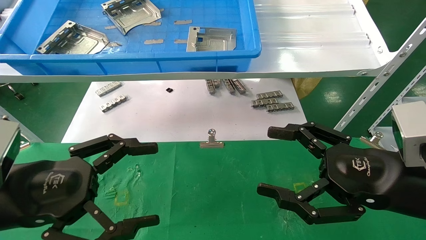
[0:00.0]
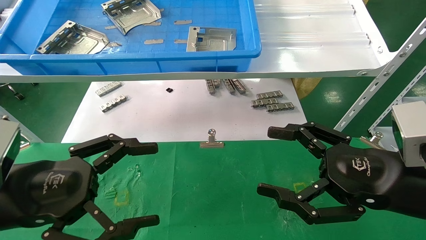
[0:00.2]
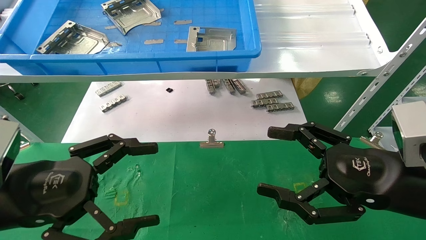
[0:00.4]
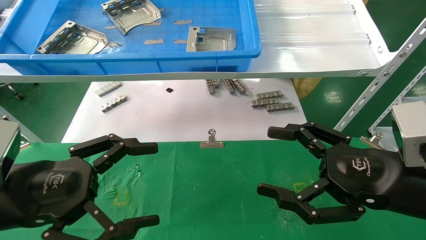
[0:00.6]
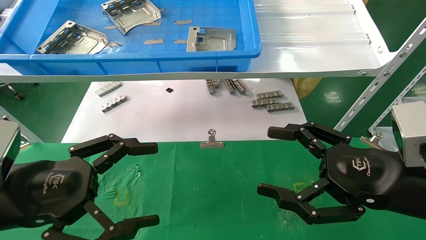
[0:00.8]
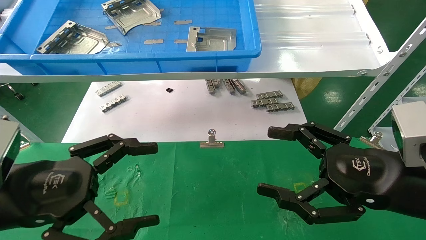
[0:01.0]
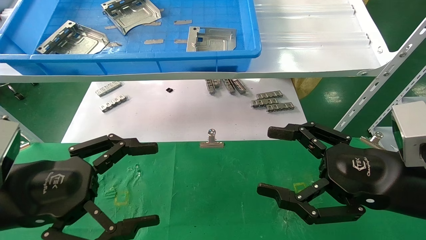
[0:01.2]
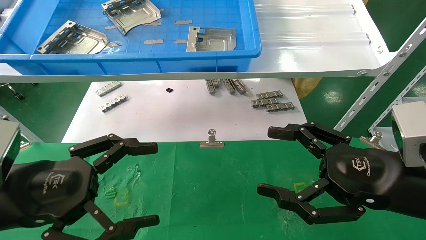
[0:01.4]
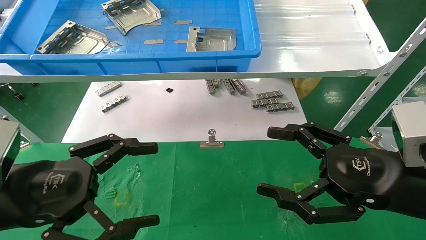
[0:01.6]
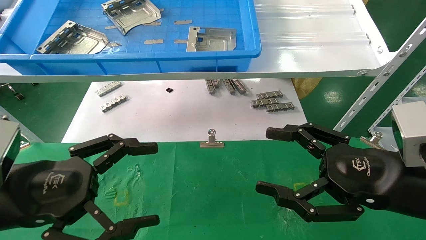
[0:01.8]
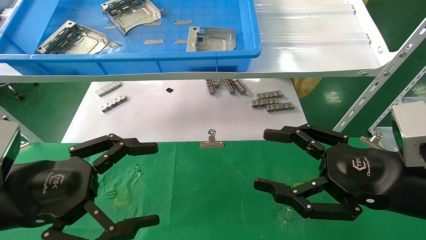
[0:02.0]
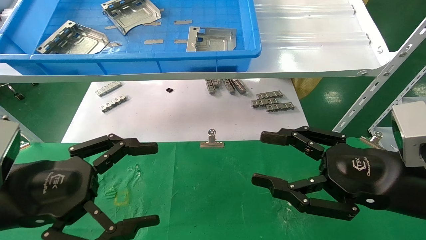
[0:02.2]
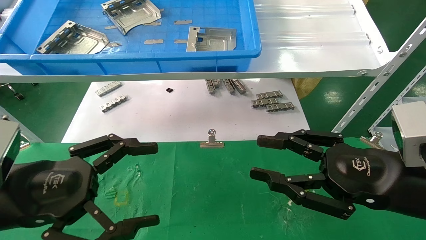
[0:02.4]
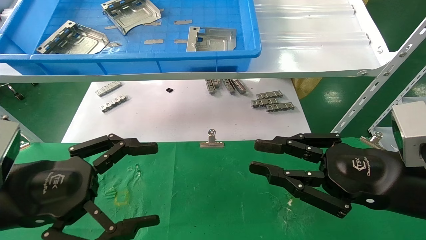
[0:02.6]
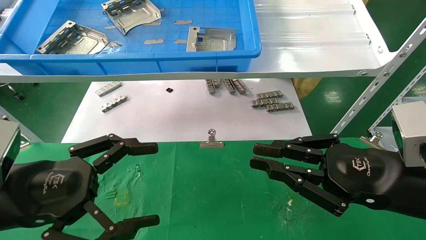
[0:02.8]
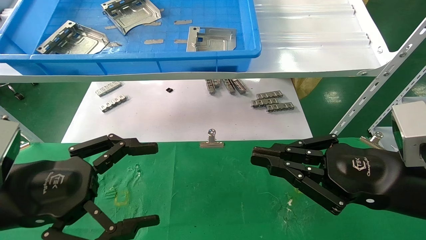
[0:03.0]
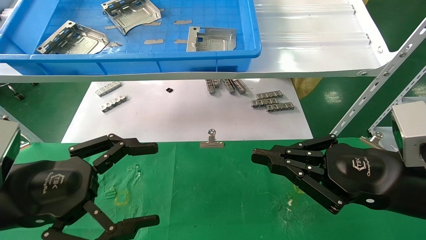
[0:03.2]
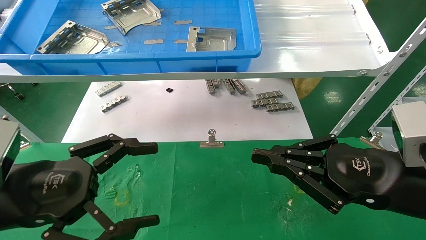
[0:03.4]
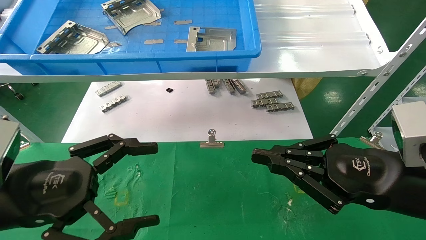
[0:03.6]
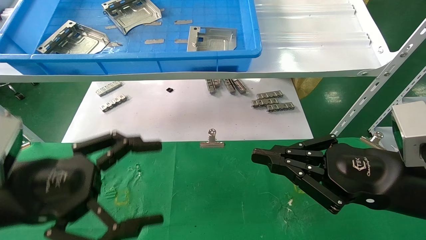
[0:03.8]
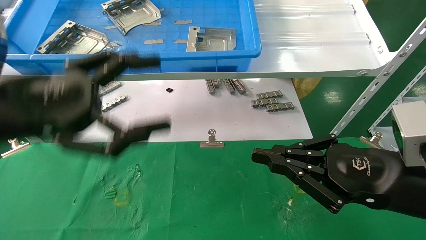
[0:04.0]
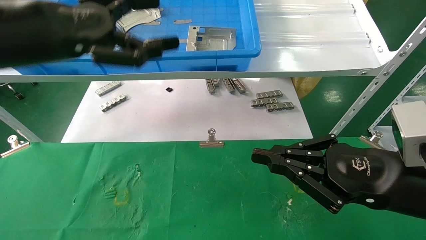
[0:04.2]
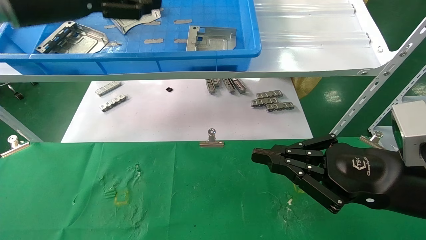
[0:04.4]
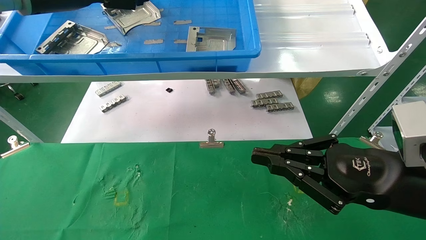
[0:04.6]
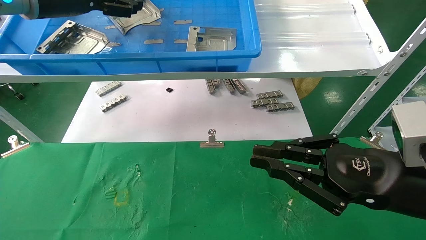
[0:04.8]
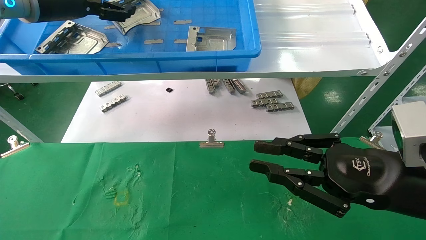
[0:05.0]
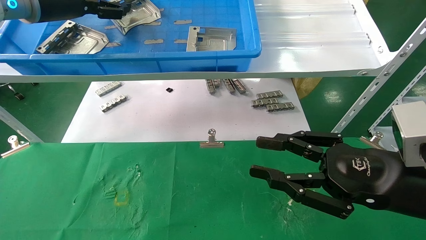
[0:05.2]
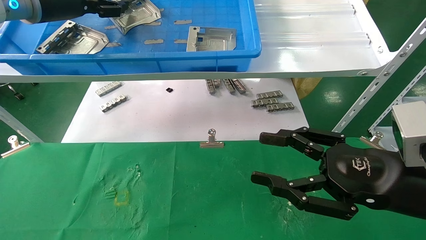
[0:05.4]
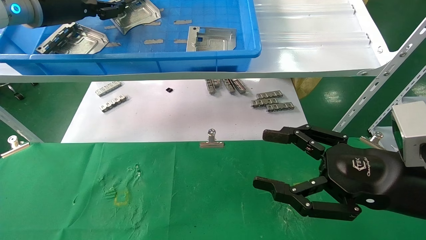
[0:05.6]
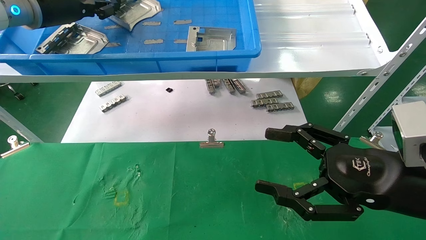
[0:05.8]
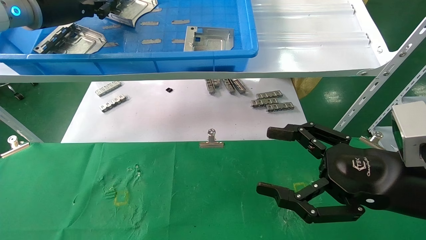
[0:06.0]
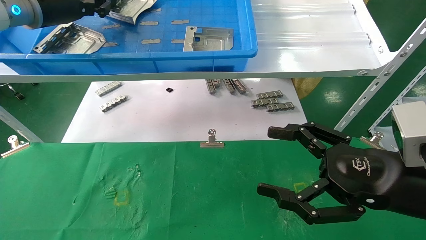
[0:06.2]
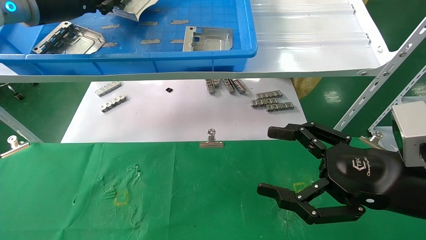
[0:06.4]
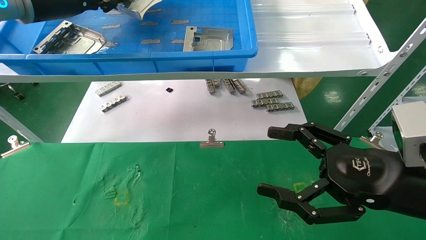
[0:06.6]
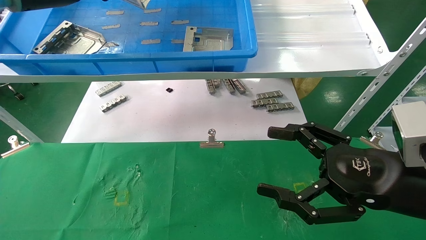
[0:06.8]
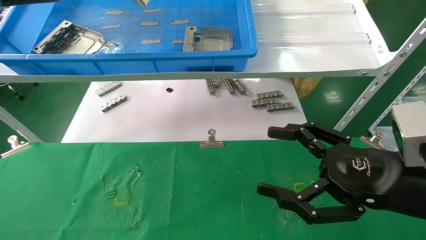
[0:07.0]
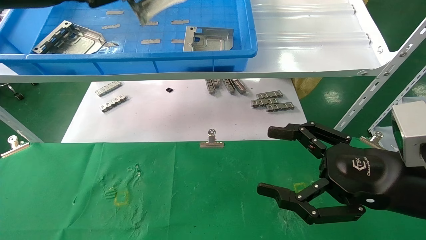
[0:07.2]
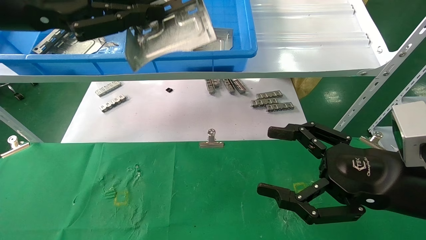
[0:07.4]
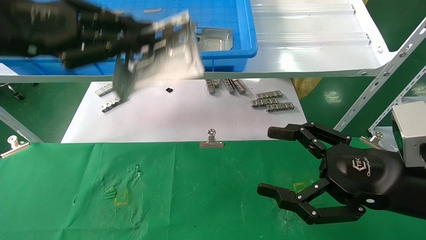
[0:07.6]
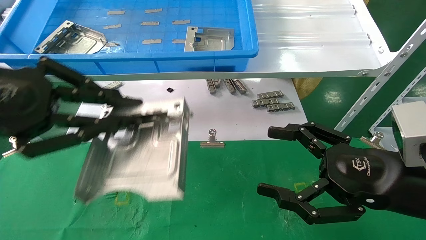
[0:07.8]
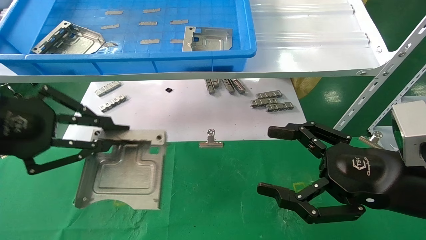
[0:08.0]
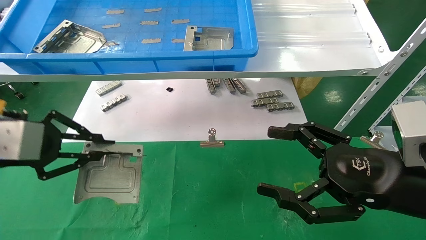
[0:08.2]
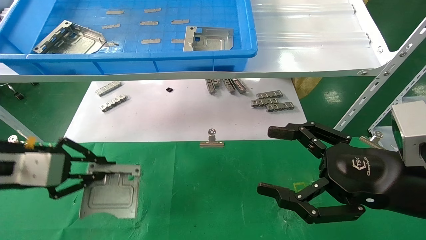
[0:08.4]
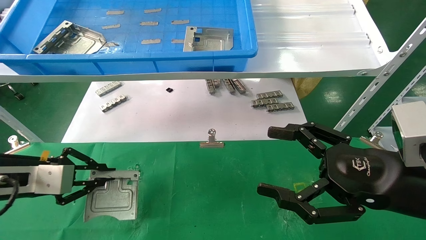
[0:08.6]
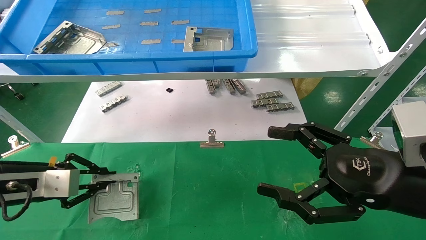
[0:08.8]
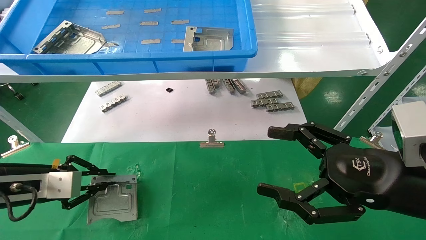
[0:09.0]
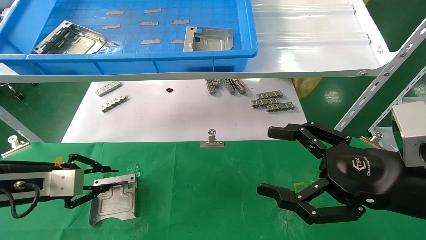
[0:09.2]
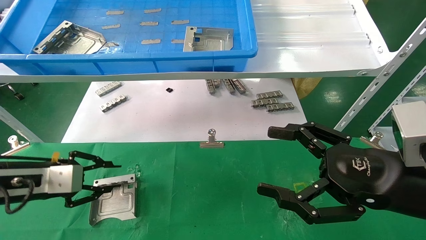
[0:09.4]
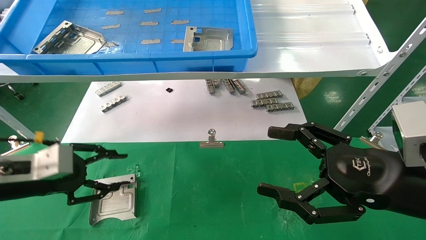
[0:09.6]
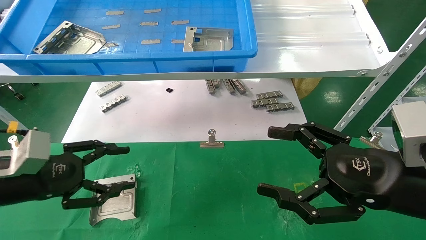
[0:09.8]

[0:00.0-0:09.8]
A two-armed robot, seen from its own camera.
Task of the whole recording: use the mechanical arm to pick up the parts and place them on the table.
Step, 0:04.2 to 0:06.0: Pick up the hard drive bracket from the feeding area.
Step, 0:06.2 to 0:09.4: Place the hard drive bracket into the box.
0:00.0 to 0:01.4: The two grippers keep their place.
0:01.4 to 0:02.8: The right gripper closes its fingers.
0:02.8 to 0:04.2: The left gripper travels upward and forward by about 20 cm.
0:04.2 to 0:05.6: The right gripper opens its fingers; the left gripper heads forward and upward, covering some 15 cm, and closes.
0:05.6 to 0:07.0: The right gripper opens its fingers, while the left gripper goes some 10 cm backward, and closes.
0:07.0 to 0:08.4: The left gripper heads downward, covering approximately 25 cm.
0:08.4 to 0:09.8: The left gripper travels downward by approximately 5 cm, and opens.

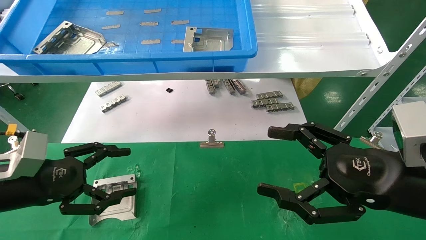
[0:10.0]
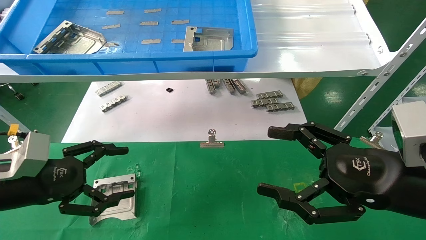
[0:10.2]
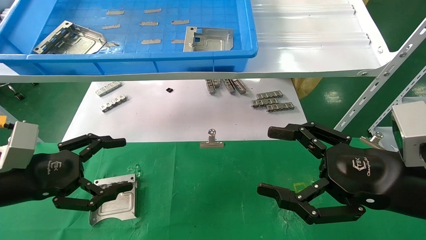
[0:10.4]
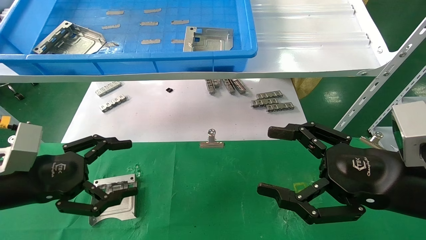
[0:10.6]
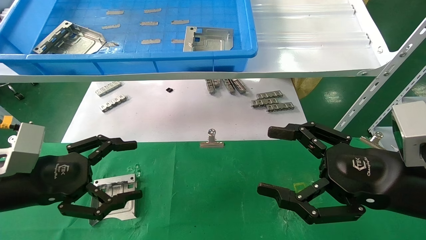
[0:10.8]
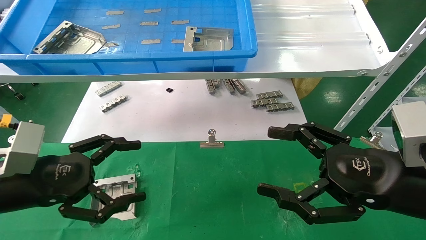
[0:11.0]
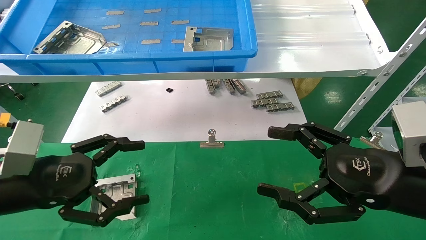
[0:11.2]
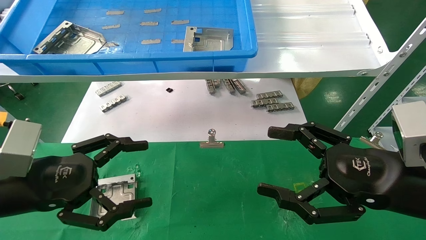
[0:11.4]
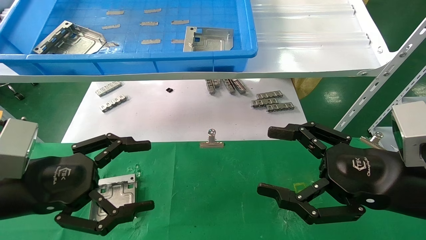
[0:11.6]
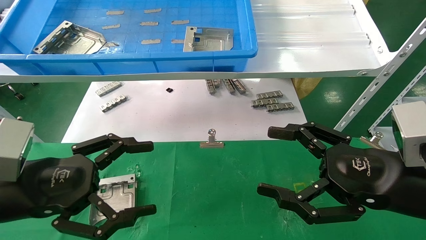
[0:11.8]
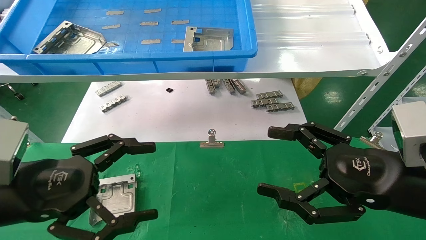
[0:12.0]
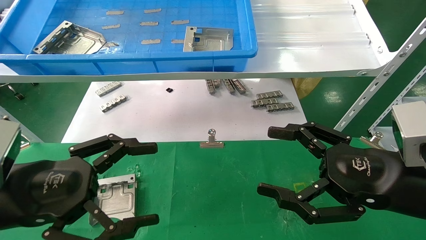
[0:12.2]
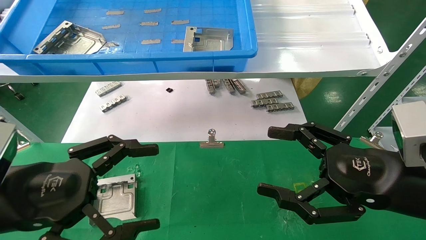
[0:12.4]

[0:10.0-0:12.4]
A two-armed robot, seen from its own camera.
Task of the whole recording: use the mechanical arm to pick up the parts and place them on the table.
0:10.0 to 0:11.2: The left gripper shifts by approximately 5 cm.
0:11.2 to 0:12.4: The left gripper ends up about 5 cm from where it was.

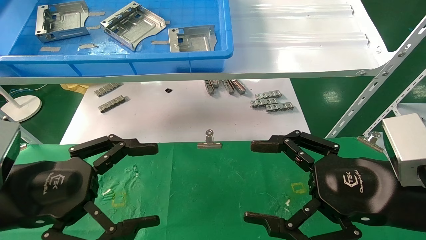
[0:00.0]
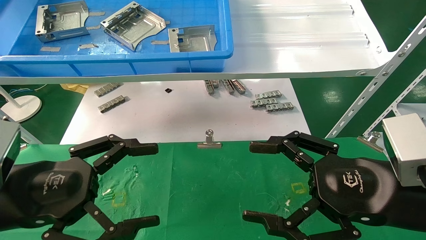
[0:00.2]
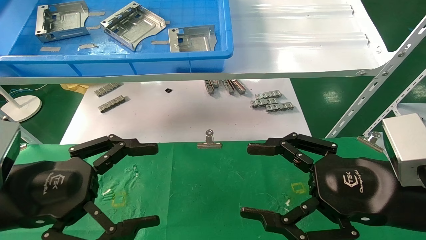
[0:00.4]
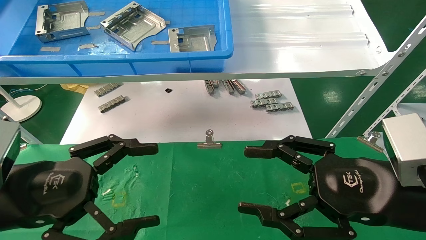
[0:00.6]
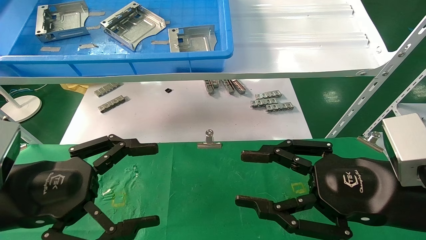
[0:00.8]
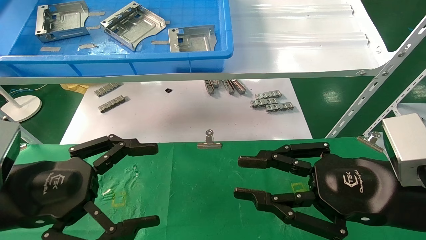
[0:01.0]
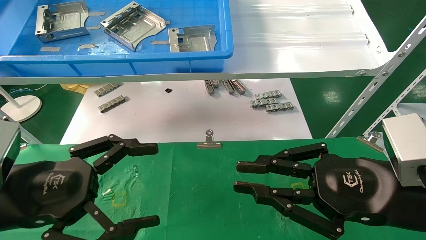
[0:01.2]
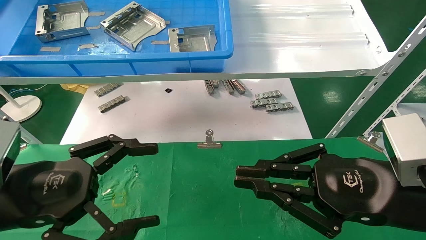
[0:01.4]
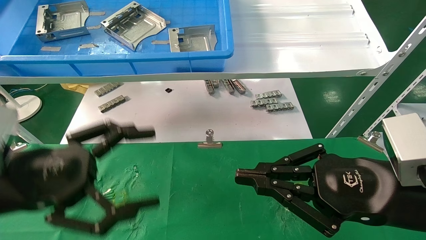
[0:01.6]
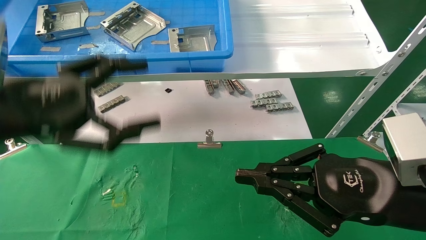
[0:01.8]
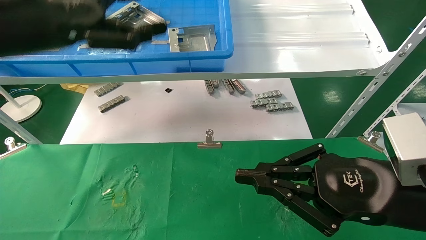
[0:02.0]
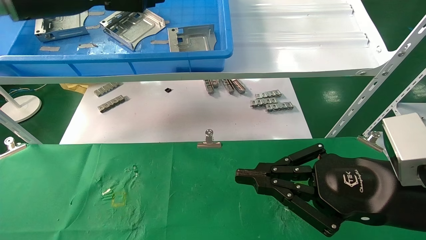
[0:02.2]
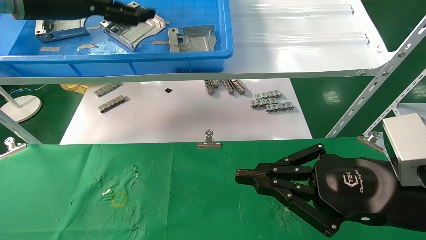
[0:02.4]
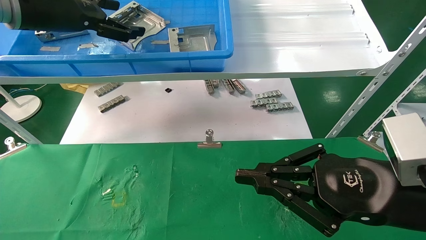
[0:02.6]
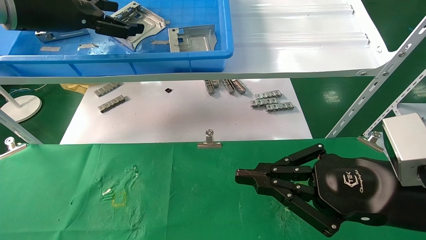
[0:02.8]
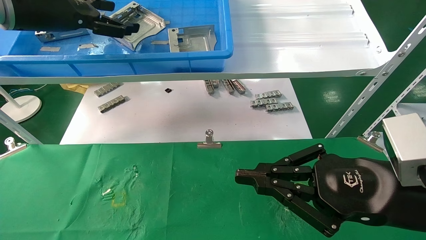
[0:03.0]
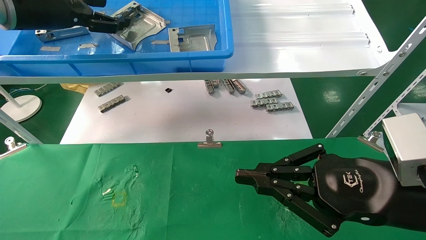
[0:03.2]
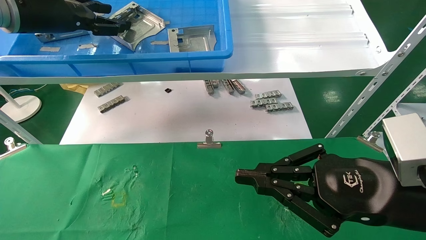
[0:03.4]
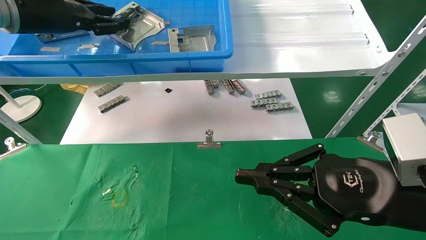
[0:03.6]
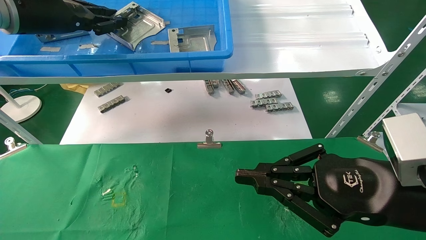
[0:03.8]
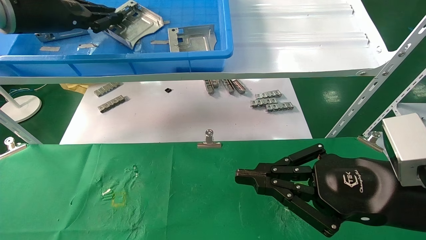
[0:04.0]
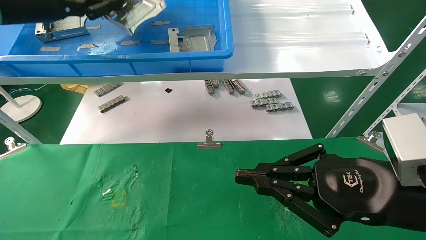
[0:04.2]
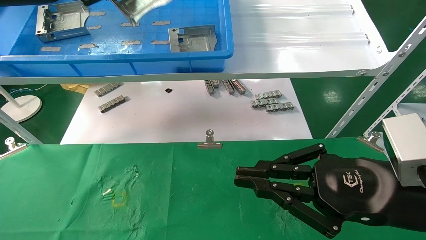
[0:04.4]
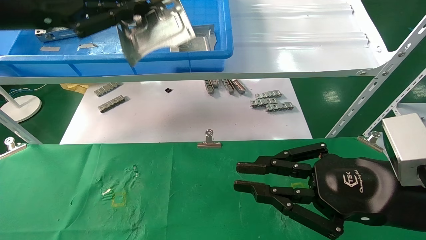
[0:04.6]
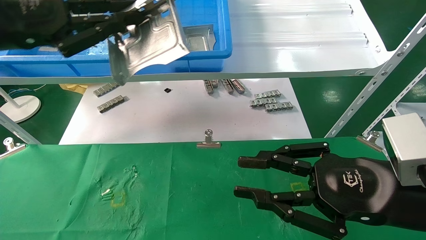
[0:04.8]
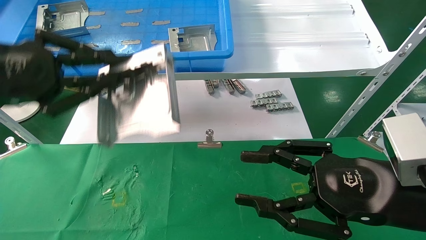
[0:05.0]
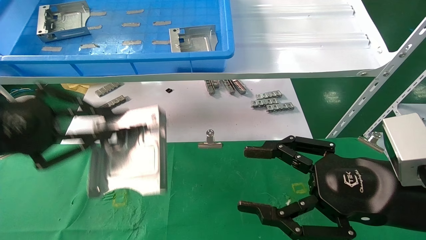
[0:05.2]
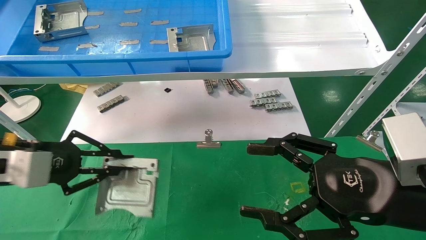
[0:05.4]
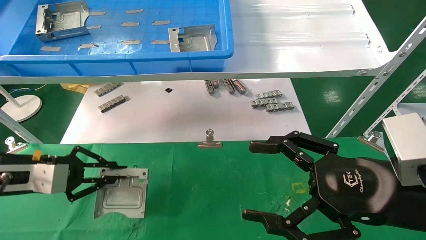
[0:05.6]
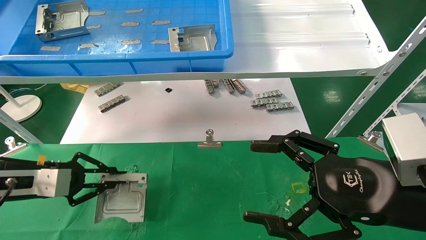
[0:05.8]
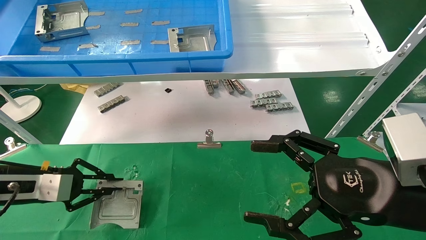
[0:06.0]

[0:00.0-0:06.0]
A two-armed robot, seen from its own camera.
Task of the whole recording: use the mechanical arm to pick up the parts and place them on the table.
Step, 0:01.6 to 0:03.6: Pick up the hard drive bracket from the feeding area.
0:00.0 to 0:01.6: The right gripper closes up.
0:01.6 to 0:03.0: The left gripper travels upward and forward by approximately 25 cm.
0:03.0 to 0:04.4: The left gripper shifts roughly 5 cm backward, and closes.
0:04.4 to 0:06.0: The right gripper opens up, while the left gripper moves downward, about 30 cm.
